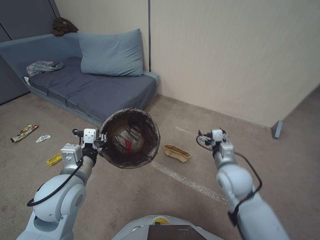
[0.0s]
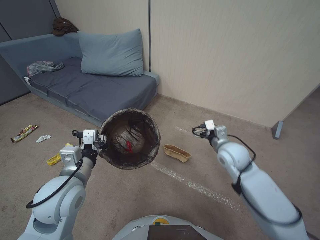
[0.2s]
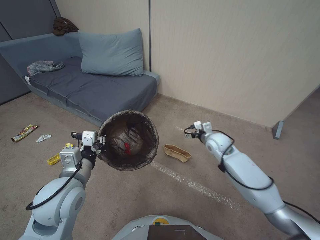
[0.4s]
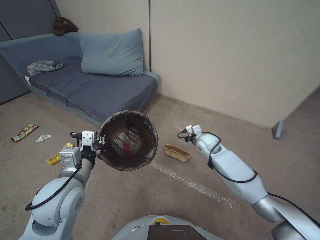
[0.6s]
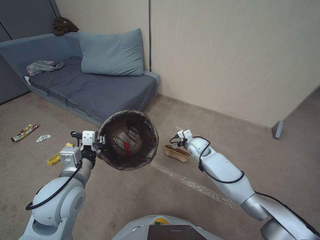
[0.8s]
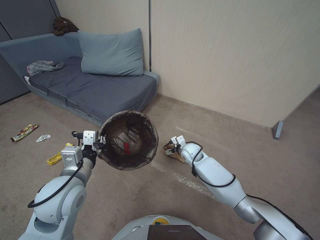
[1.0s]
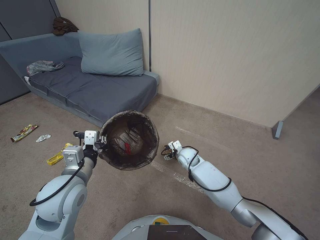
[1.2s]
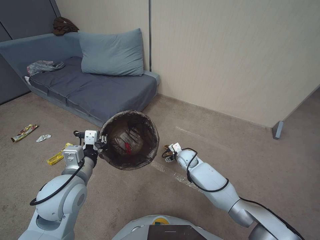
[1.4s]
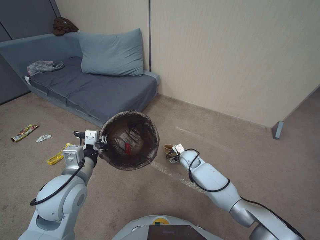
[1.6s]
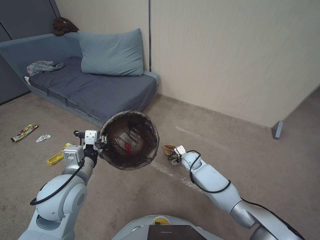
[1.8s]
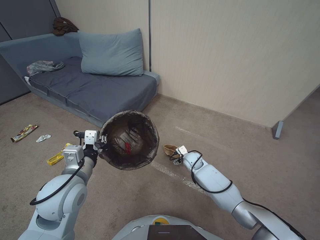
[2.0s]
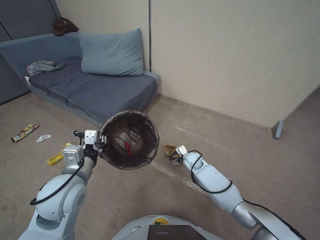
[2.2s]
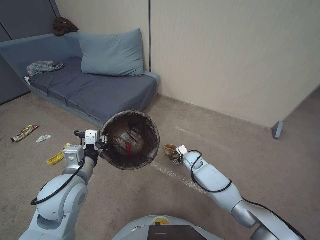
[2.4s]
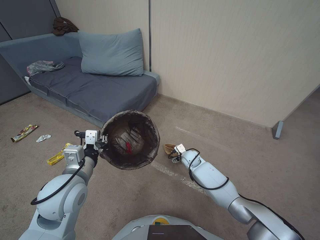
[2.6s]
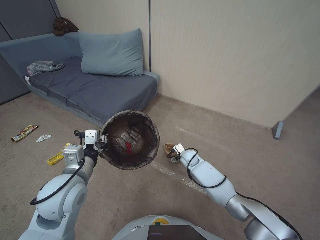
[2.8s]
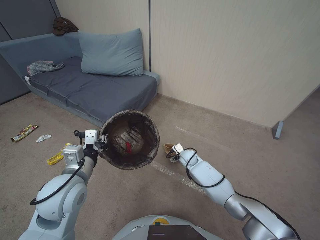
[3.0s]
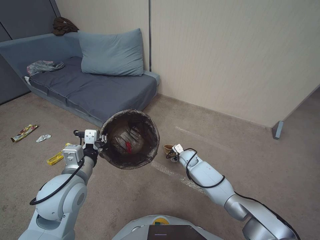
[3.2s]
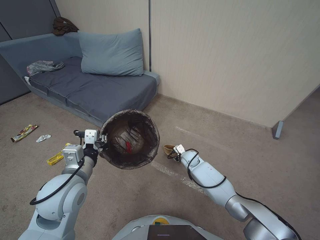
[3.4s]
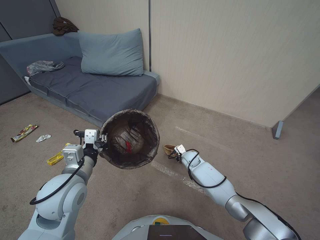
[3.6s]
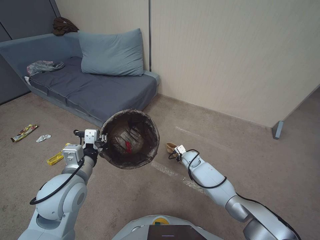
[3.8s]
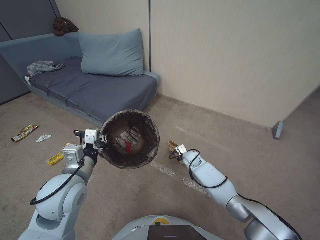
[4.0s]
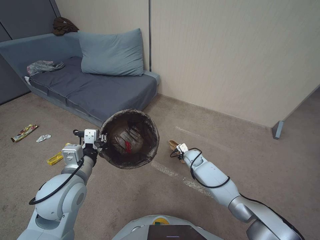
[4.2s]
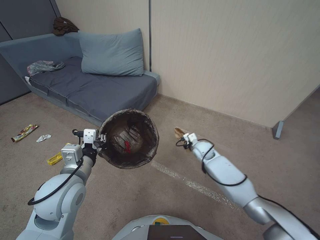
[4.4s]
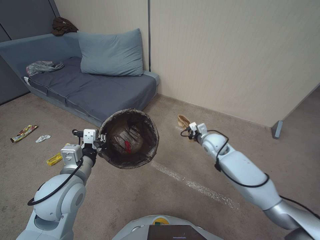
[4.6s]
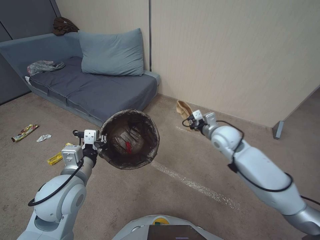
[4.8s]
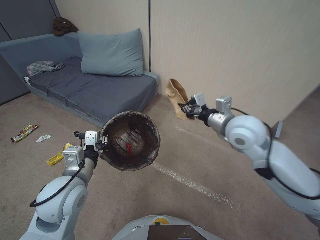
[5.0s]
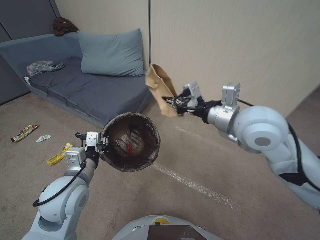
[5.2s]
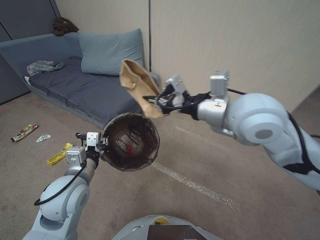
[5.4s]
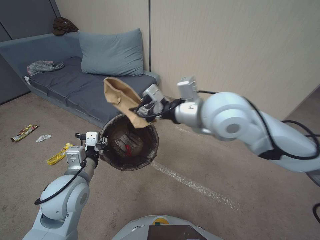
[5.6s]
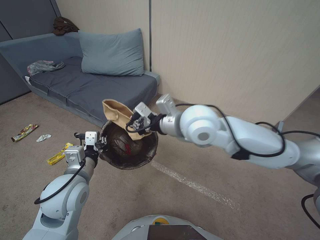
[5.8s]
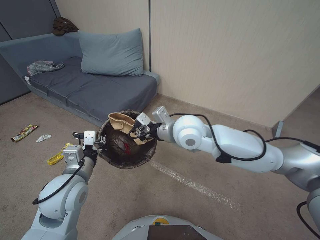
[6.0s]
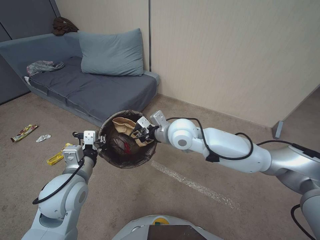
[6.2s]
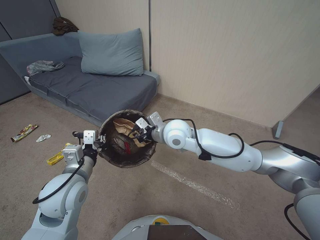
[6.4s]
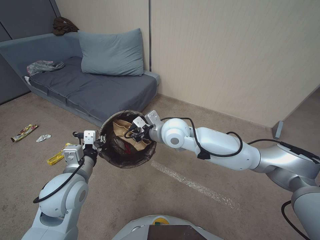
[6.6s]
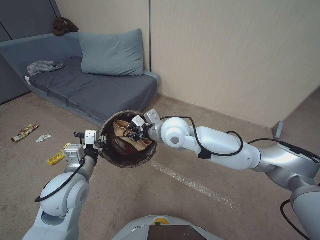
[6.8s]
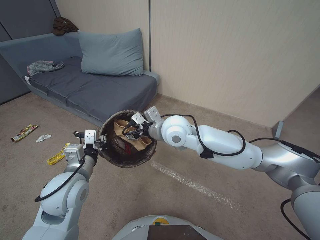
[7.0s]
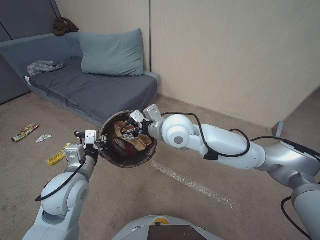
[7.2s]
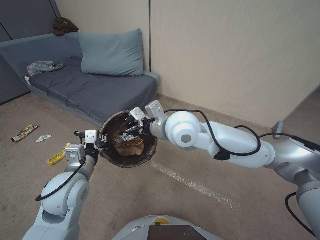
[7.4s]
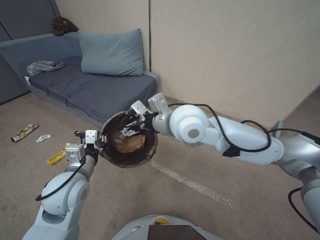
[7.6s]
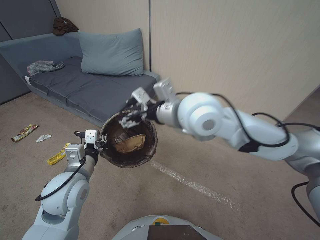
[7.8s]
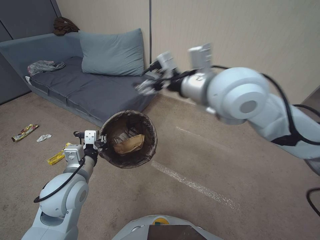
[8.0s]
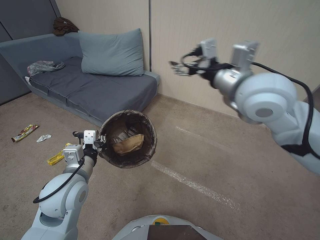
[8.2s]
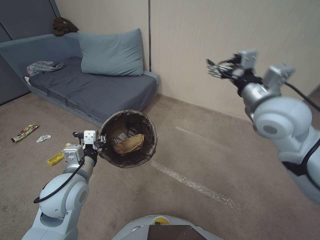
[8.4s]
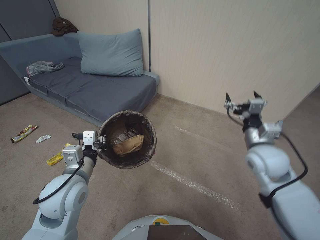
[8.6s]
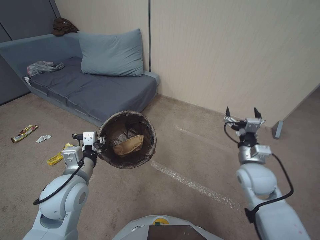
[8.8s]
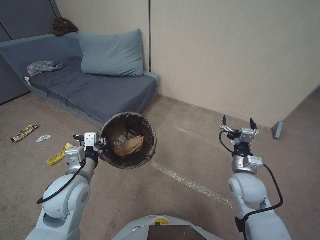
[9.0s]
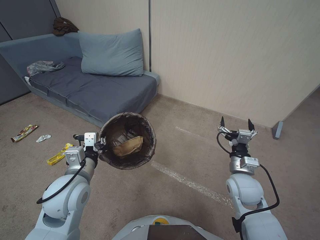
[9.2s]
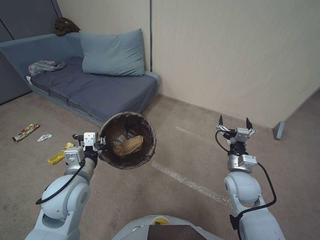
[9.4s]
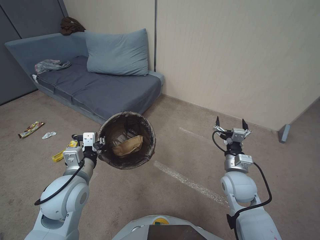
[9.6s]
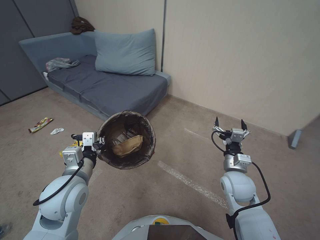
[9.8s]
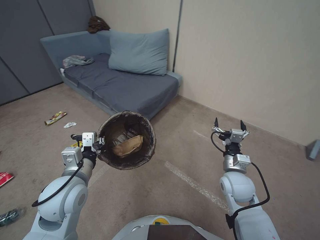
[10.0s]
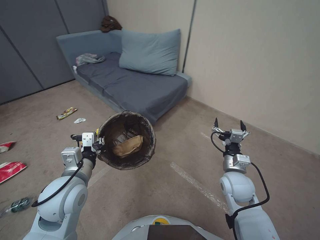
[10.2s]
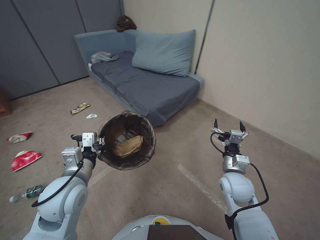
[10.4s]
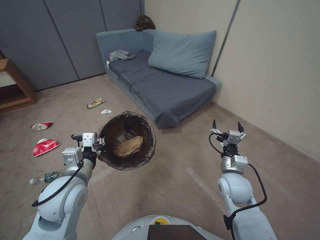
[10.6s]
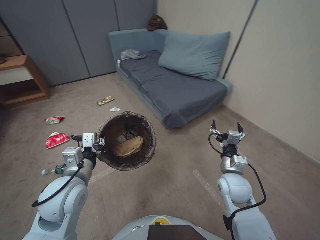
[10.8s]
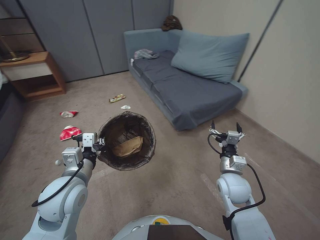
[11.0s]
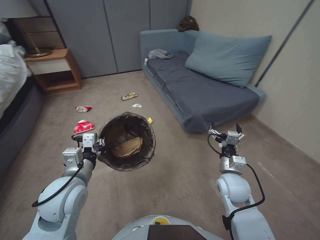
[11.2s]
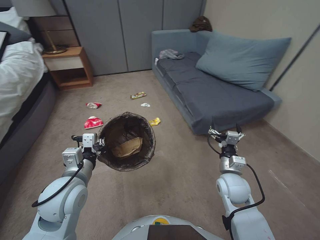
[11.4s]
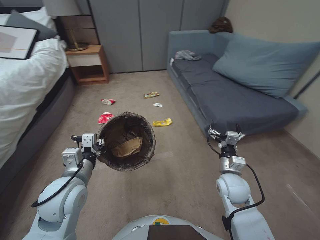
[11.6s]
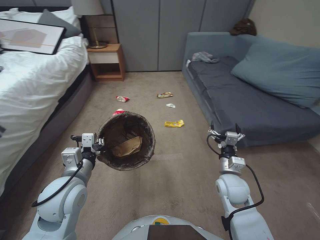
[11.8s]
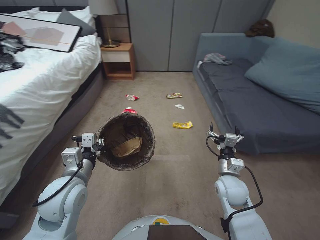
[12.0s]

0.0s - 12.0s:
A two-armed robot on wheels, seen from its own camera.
Task of the whole recording: Pick up the trash bin, then pick up the garbage from the floor and place it into the trash bin.
0.0s - 1.6s: The right gripper is displaced forward, downward and to the left by some 25 cm.
1.6s - 3.0s: The right gripper changes place by about 5 cm.
3.0s - 4.4s: The right gripper closes up.
4.4s - 6.0s: The right gripper goes approximately 35 cm upward.
6.0s - 7.6s: The right gripper reaches approximately 5 cm downward, then returns, and opens.
7.6s - 9.0s: The right gripper heads to the right, covering some 25 cm.
9.0s - 10.4s: The right gripper moves downward, roughly 15 cm.

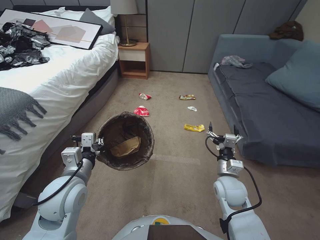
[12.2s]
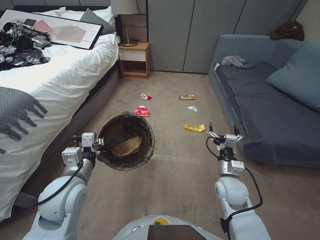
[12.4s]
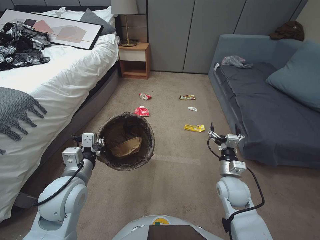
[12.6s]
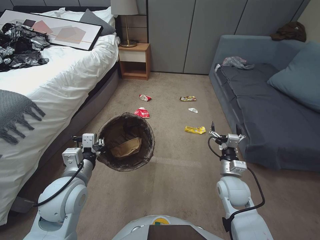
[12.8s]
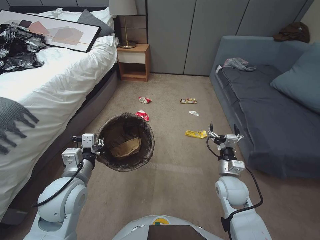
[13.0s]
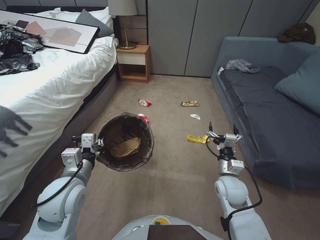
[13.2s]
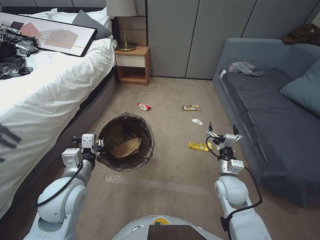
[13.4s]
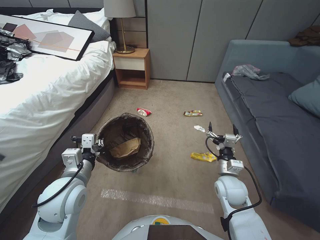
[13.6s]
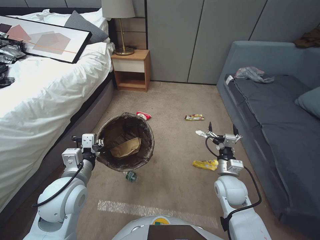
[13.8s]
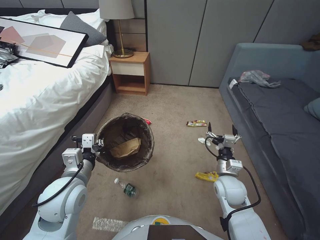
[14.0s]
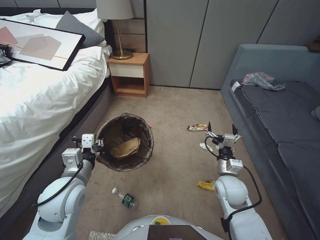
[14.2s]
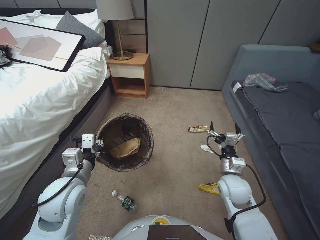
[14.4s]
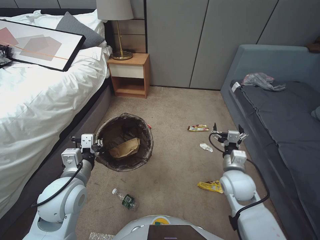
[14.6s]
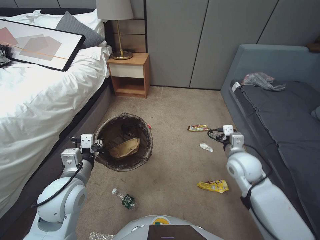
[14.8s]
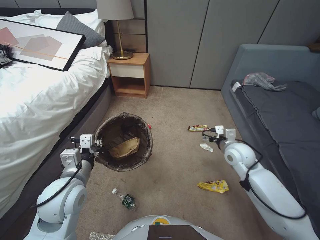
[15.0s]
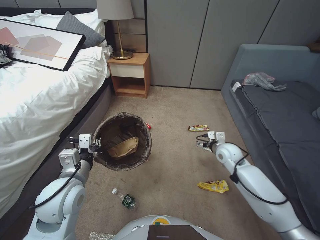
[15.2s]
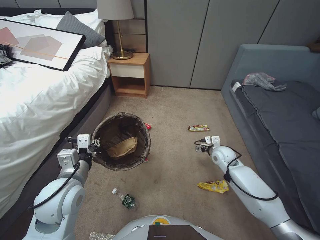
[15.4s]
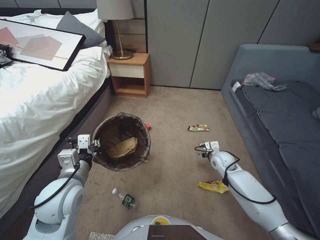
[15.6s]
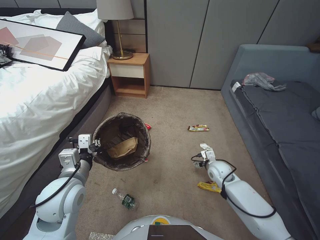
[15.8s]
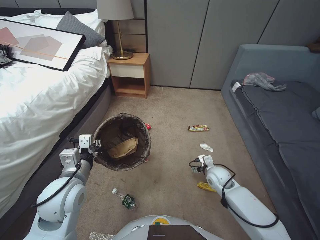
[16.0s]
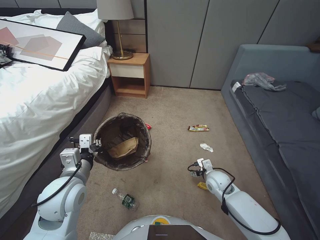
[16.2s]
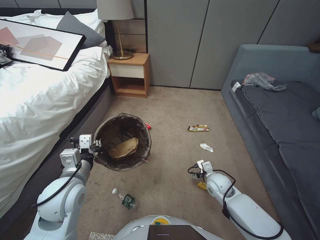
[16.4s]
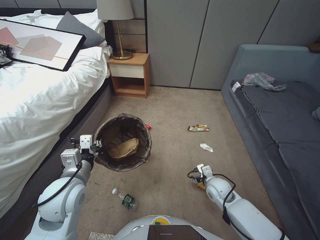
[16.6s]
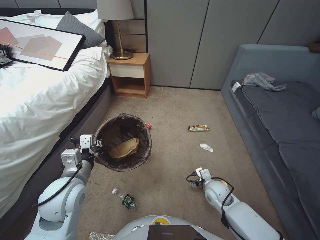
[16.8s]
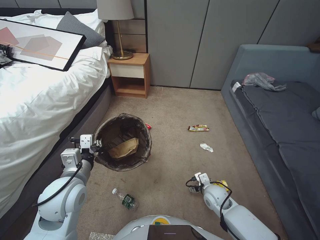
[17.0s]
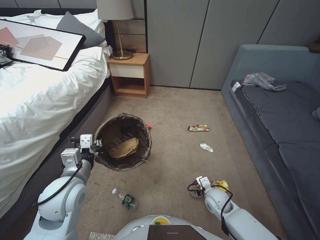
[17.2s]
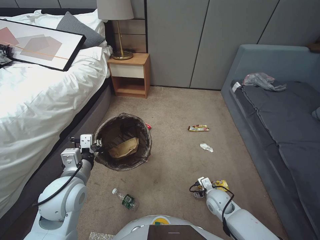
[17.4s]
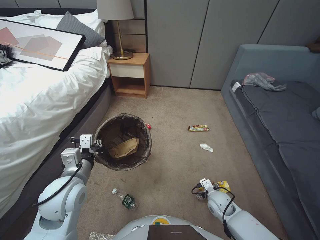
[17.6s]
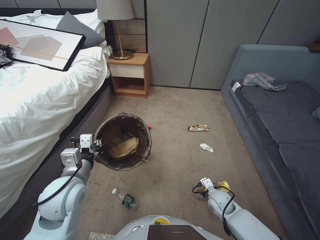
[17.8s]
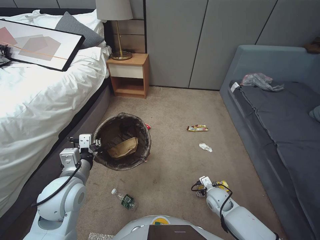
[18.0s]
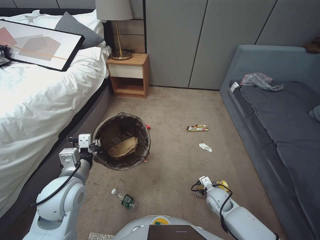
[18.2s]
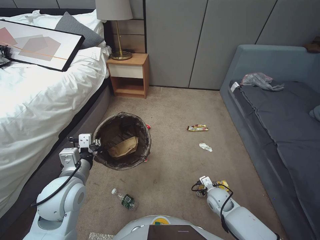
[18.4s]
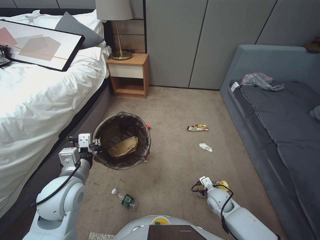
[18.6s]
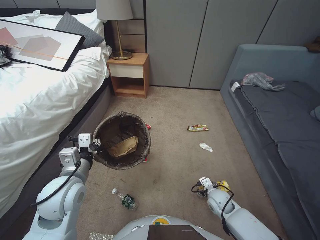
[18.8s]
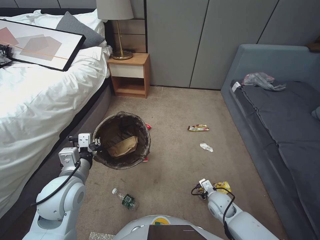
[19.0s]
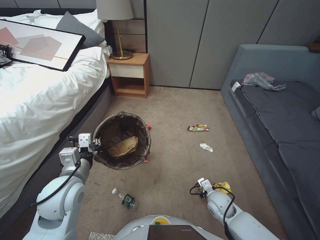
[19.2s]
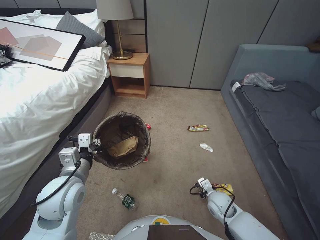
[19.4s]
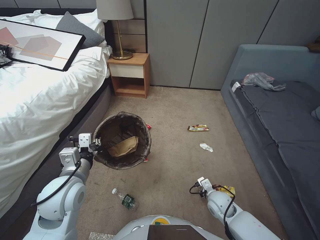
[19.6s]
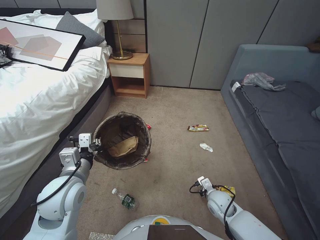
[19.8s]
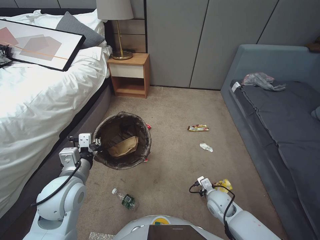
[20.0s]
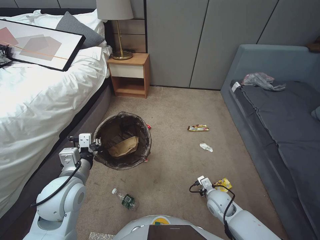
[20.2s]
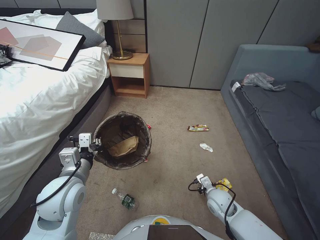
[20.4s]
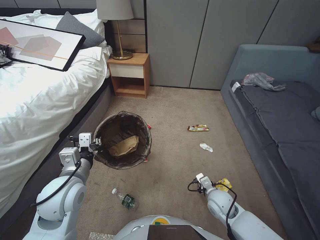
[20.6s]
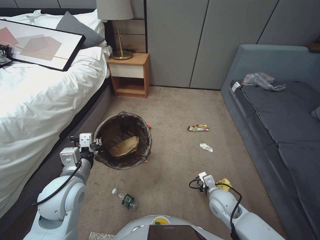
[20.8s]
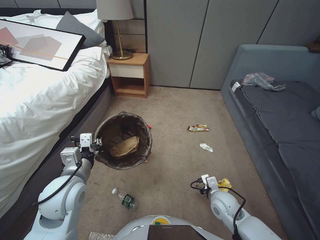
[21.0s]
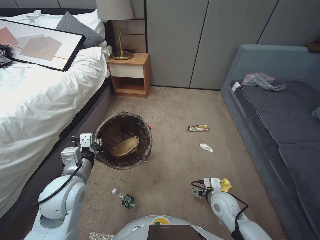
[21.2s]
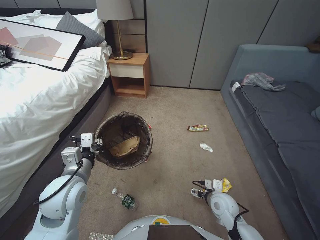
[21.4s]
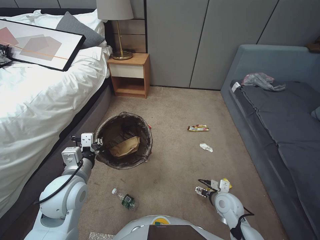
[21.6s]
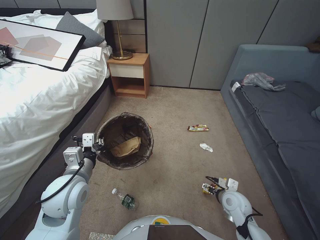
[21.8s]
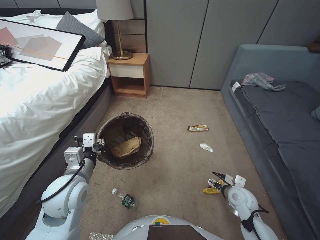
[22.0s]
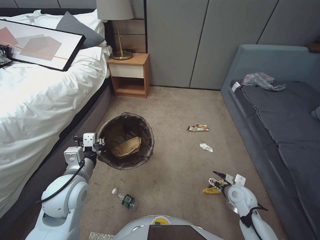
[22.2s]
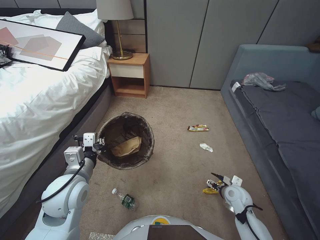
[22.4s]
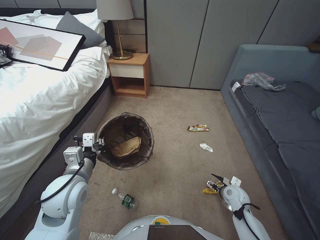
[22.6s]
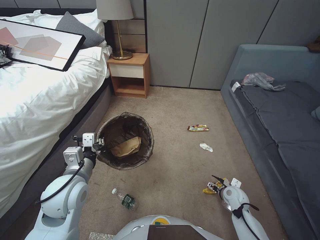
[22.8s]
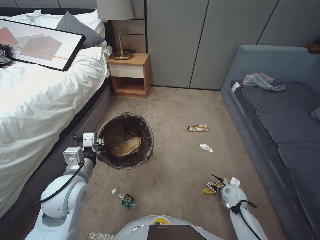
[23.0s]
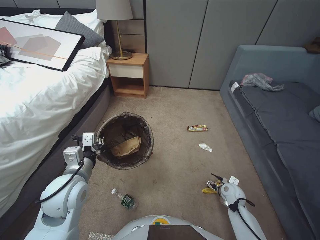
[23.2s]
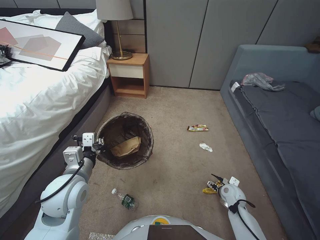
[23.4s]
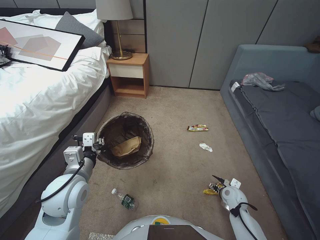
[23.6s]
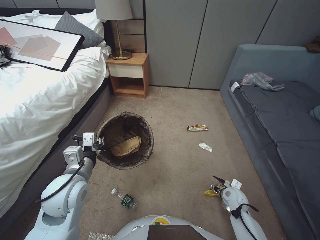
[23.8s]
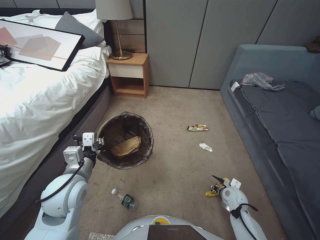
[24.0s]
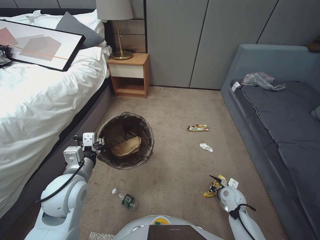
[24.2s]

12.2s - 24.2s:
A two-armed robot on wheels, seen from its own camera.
Task of the whole recording: Pick up the trash bin, then pick up the garbage from the floor and place it into the trash bin.
13.8s - 15.2s: The right gripper shifts some 15 cm forward and upward.
15.2s - 16.6s: The right gripper goes roughly 15 cm downward and backward.
16.6s - 18.2s: The right gripper shifts approximately 5 cm downward.
18.2s - 19.8s: The right gripper closes.
19.8s - 21.2s: The right gripper ends up some 5 cm from where it was, and opens up.
21.2s - 22.6s: The right gripper moves to the right, about 10 cm.
22.6s - 24.2s: The right gripper closes its fingers.
